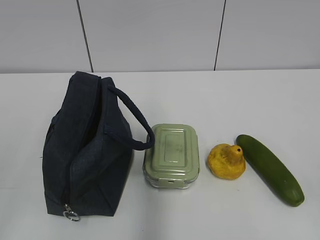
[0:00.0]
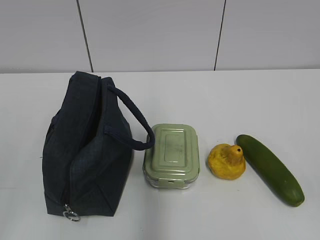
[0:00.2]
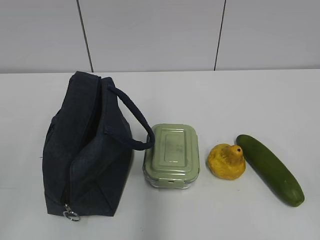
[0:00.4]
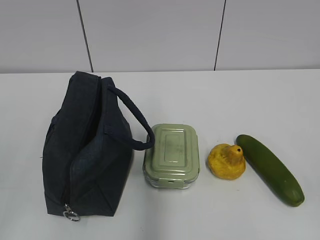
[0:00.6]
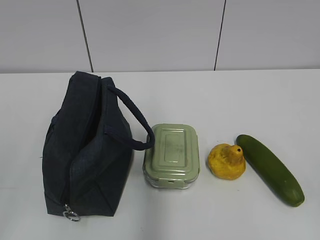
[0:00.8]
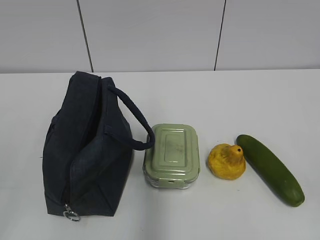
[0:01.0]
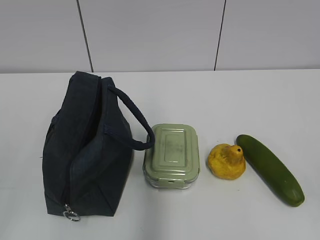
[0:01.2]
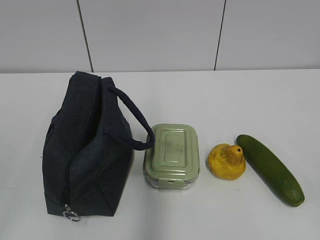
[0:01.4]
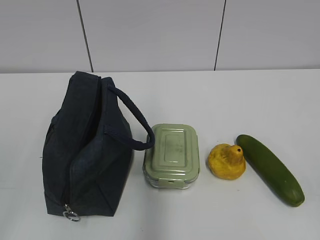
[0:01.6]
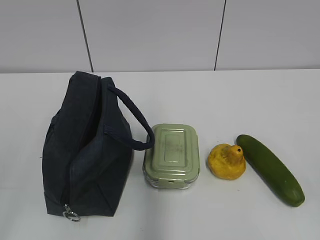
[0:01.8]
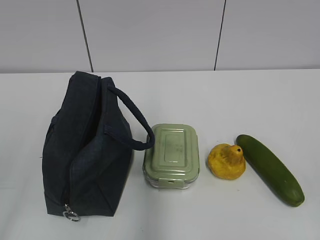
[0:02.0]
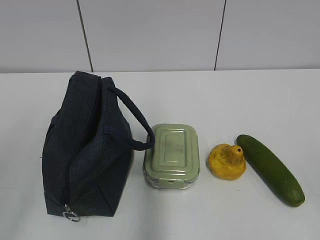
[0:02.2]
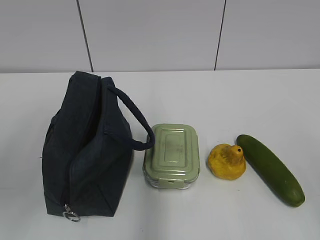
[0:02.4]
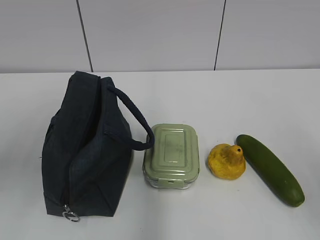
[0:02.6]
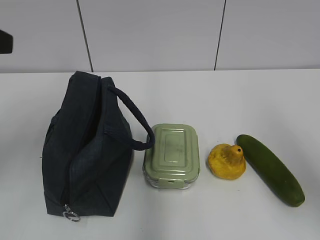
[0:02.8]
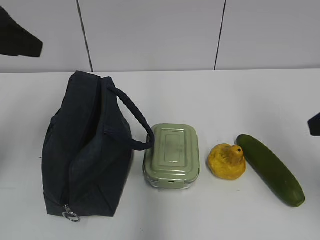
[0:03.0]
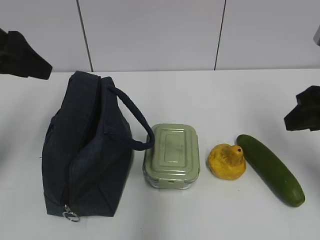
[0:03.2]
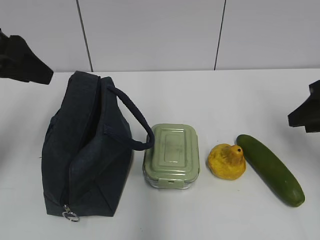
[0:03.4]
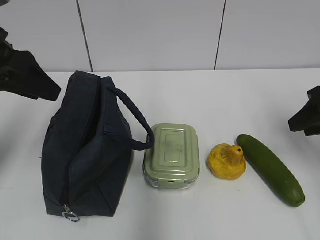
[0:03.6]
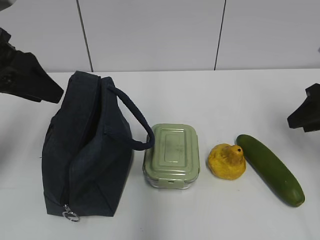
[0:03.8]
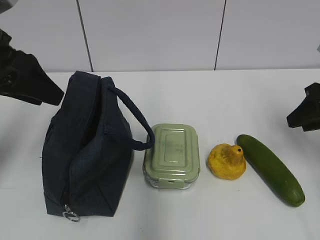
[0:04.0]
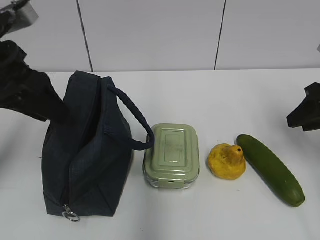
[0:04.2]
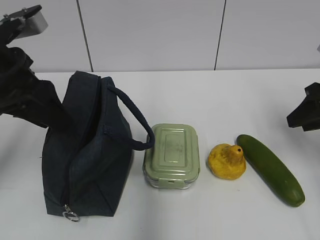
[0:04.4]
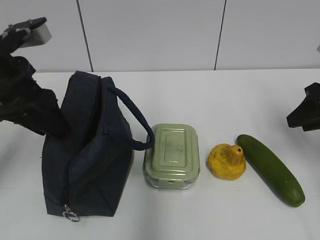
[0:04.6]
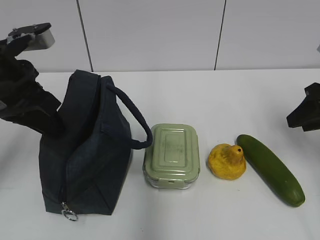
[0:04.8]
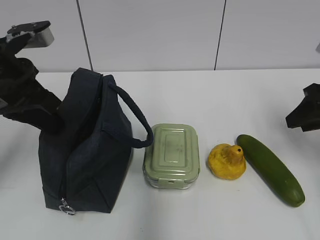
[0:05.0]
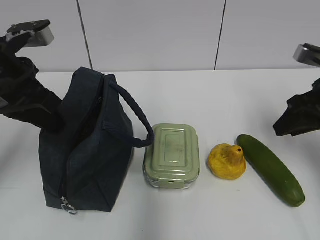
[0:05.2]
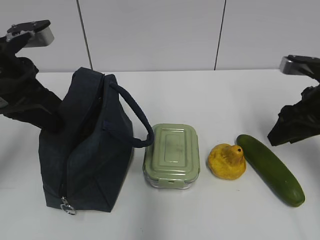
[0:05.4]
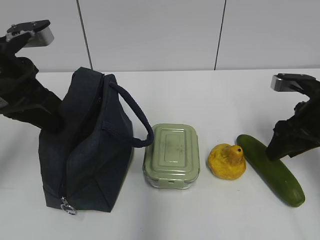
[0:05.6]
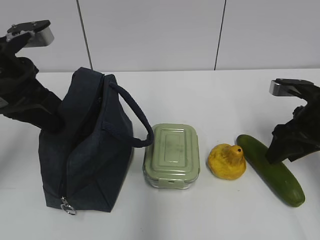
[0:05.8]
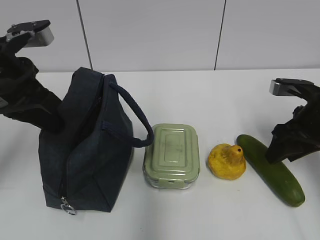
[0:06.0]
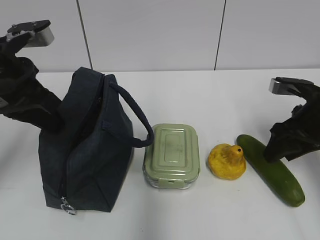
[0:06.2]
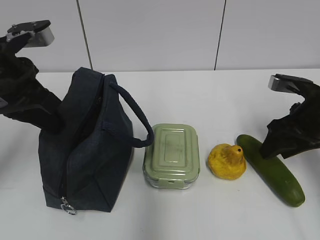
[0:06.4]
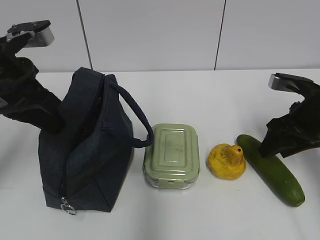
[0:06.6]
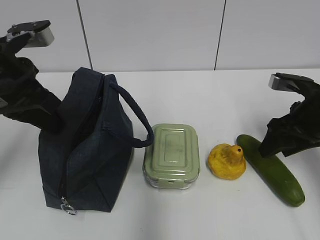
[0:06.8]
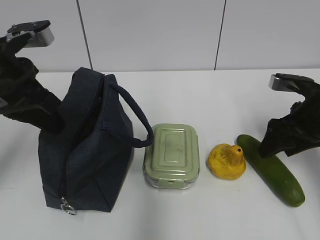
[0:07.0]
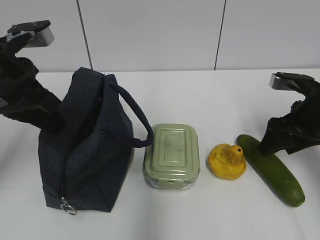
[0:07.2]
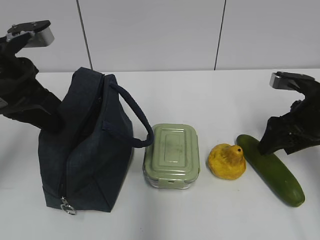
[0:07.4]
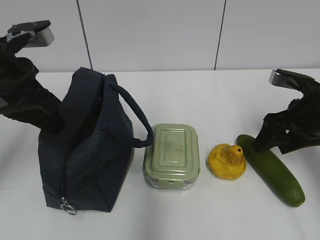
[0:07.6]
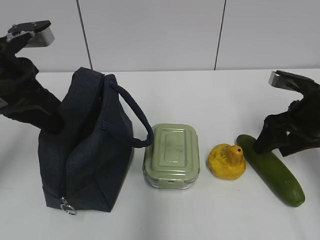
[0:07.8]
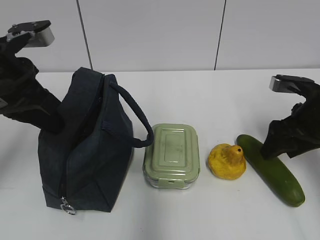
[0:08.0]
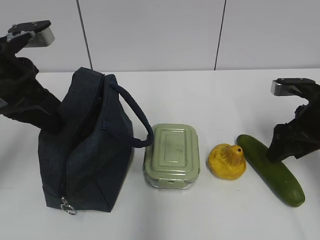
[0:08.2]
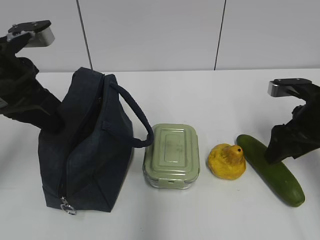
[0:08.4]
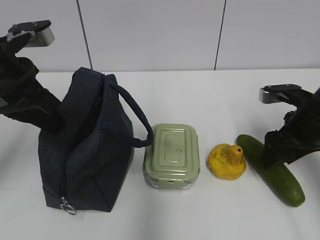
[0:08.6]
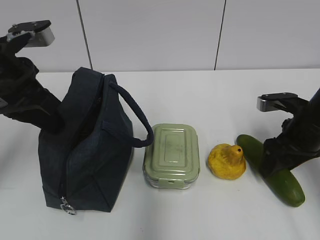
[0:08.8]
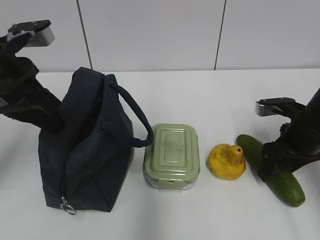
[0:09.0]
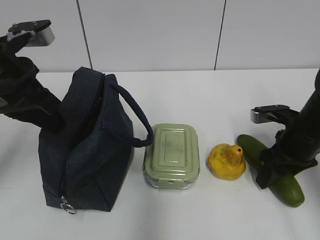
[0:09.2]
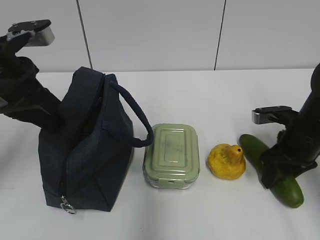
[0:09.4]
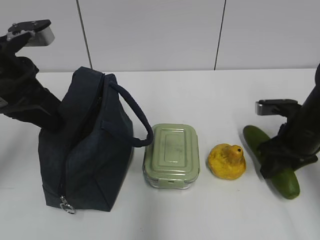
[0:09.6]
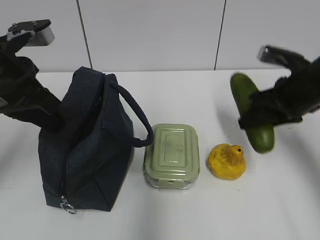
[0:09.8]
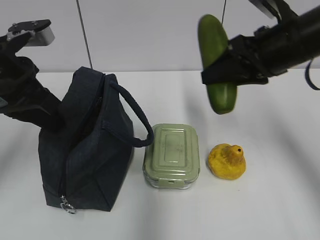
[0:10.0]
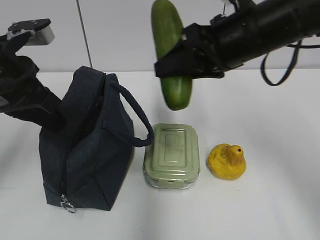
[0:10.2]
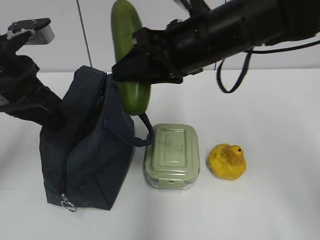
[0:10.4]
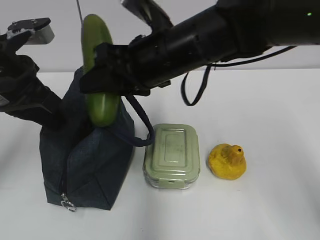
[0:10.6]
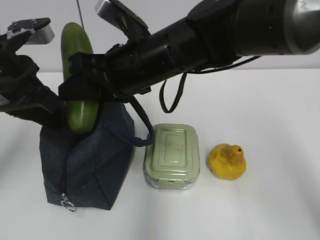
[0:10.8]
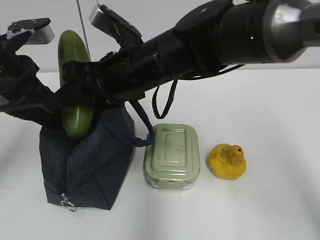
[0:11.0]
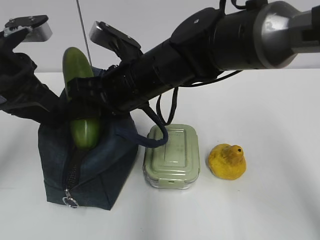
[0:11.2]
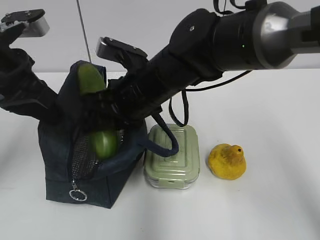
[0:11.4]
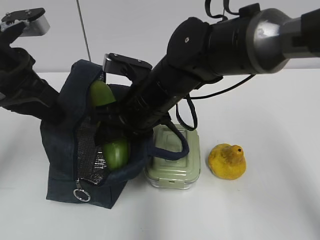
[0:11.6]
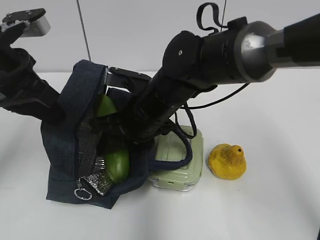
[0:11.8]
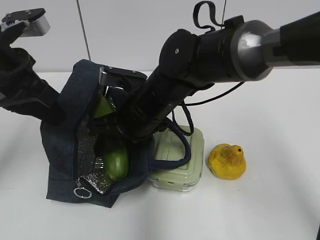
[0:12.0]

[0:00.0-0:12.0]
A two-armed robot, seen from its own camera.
0:01.6 to 0:03.0: The grippers both shift forward by about 25 cm.
0:03.0 to 0:04.4: The right gripper heads forward, to the right and downward, covering about 15 cm. Meanwhile the left gripper heads downward, covering about 5 cm.
0:04.4 to 0:06.0: The right gripper travels downward by approximately 5 cm; the left gripper closes up.
0:06.0 to 0:09.0: The grippers make only small movements.
0:09.0 to 0:10.4: The right gripper shifts some 25 cm to the left and upward, and closes.
0:10.4 to 0:12.0: The right gripper shifts about 10 cm downward and to the left.

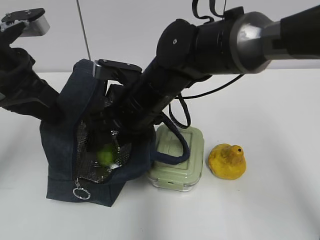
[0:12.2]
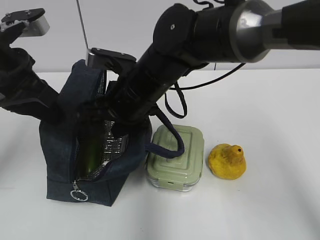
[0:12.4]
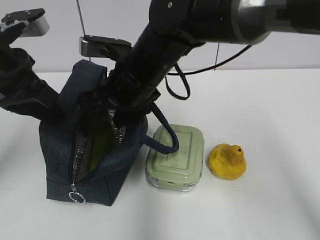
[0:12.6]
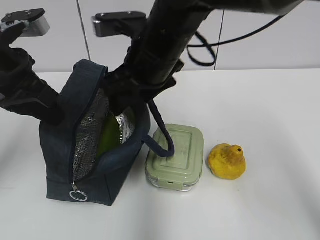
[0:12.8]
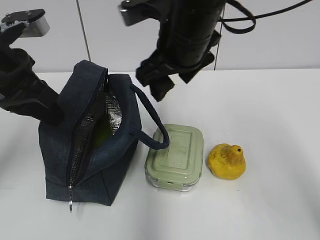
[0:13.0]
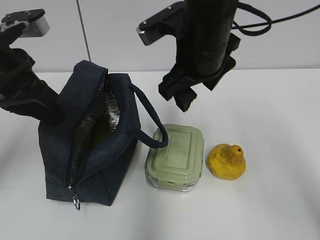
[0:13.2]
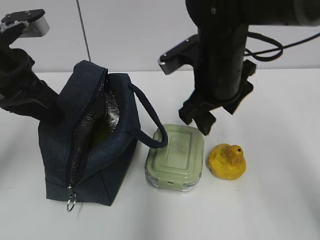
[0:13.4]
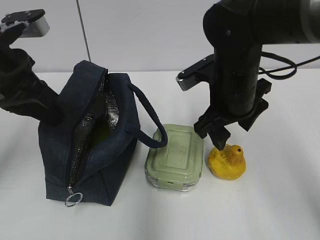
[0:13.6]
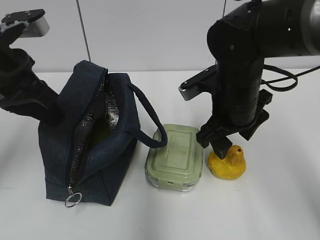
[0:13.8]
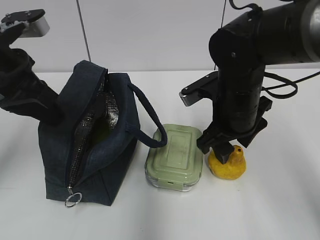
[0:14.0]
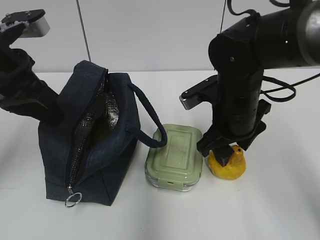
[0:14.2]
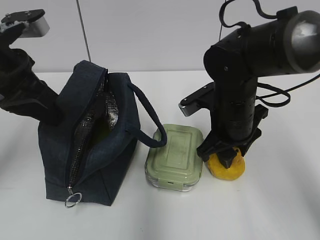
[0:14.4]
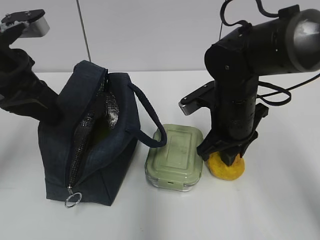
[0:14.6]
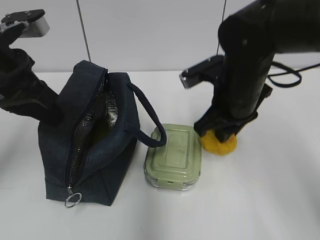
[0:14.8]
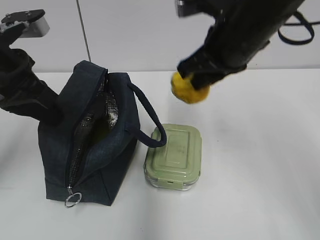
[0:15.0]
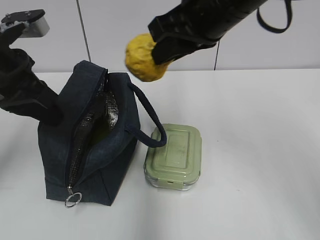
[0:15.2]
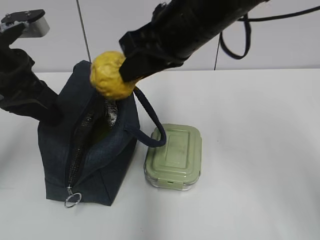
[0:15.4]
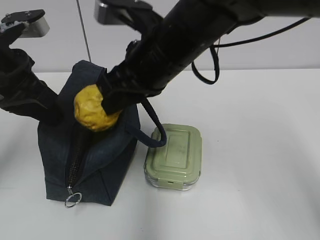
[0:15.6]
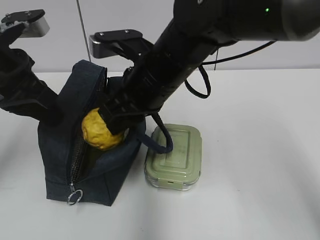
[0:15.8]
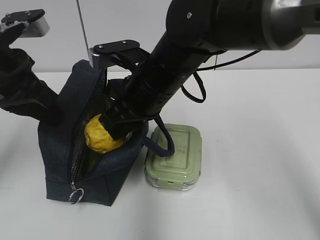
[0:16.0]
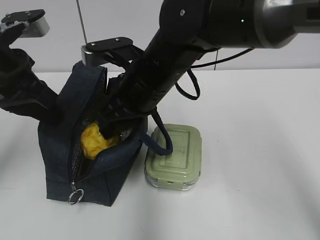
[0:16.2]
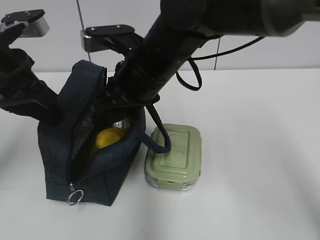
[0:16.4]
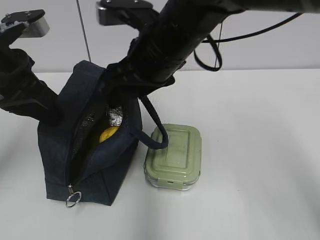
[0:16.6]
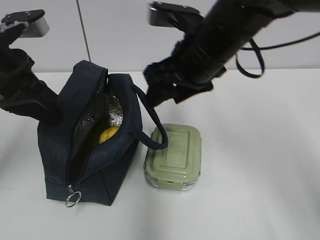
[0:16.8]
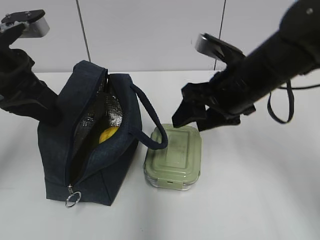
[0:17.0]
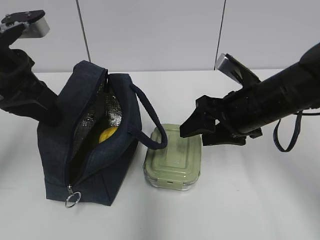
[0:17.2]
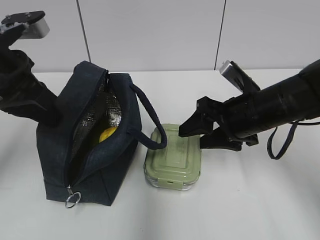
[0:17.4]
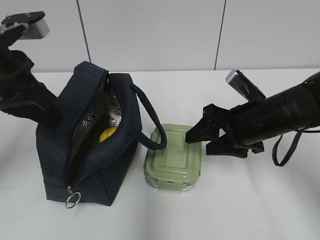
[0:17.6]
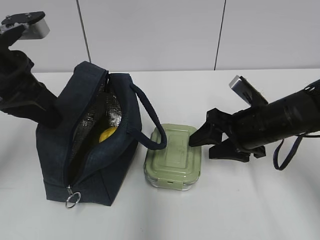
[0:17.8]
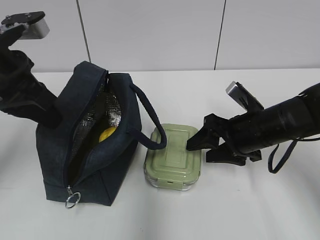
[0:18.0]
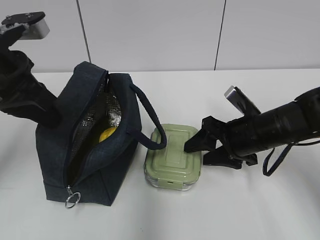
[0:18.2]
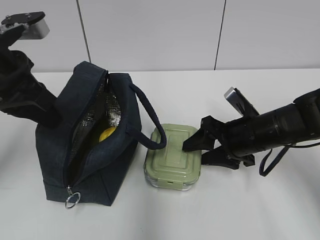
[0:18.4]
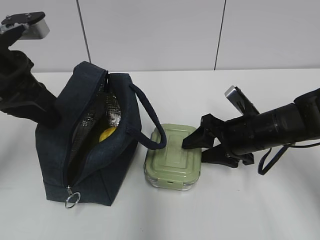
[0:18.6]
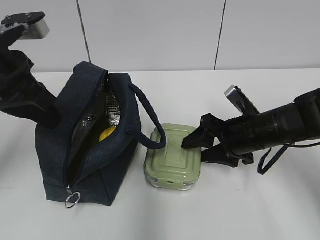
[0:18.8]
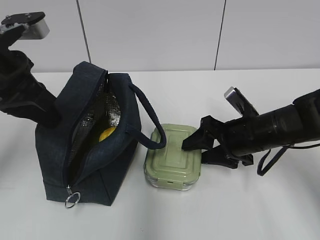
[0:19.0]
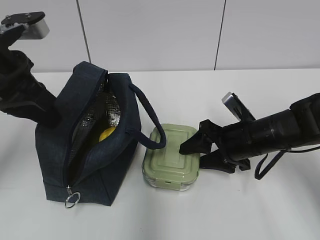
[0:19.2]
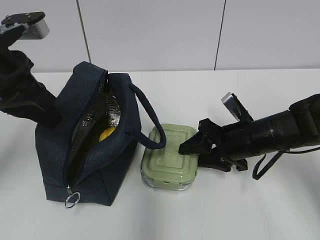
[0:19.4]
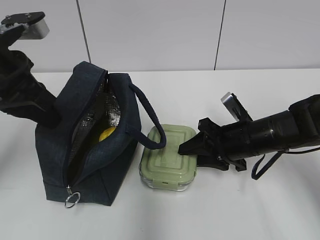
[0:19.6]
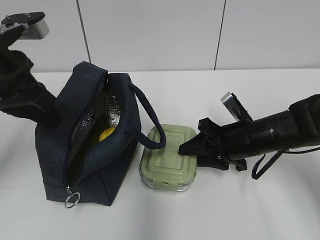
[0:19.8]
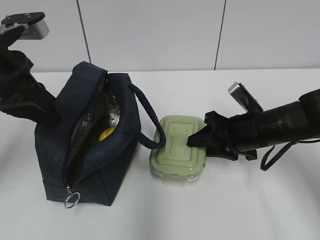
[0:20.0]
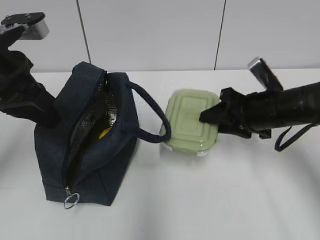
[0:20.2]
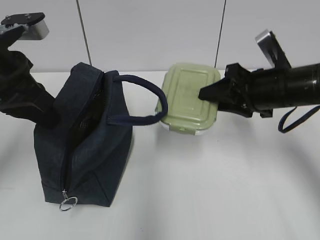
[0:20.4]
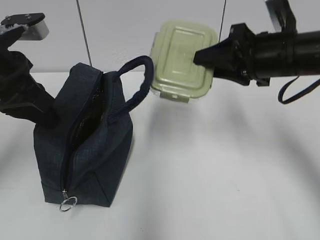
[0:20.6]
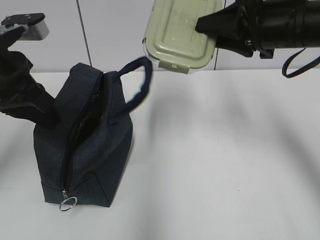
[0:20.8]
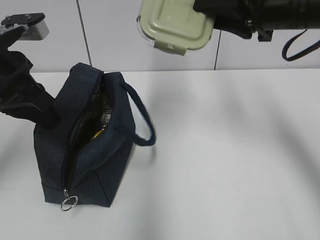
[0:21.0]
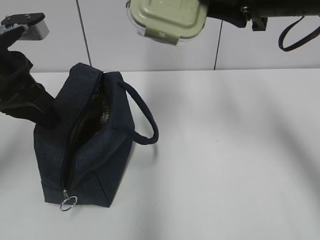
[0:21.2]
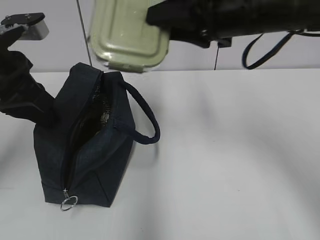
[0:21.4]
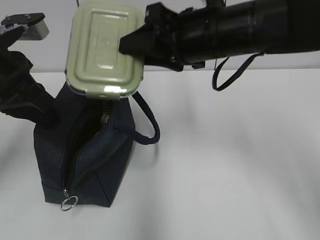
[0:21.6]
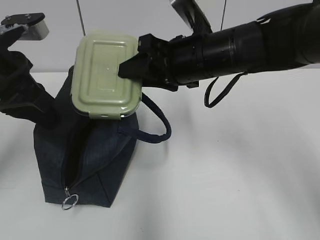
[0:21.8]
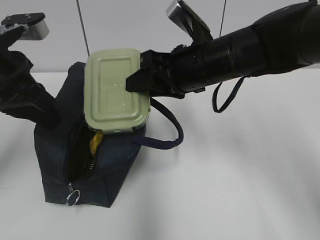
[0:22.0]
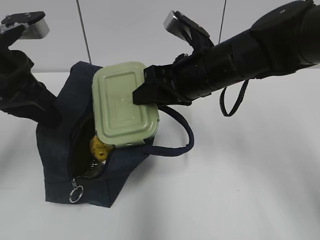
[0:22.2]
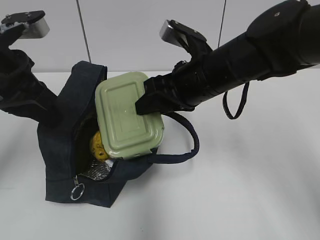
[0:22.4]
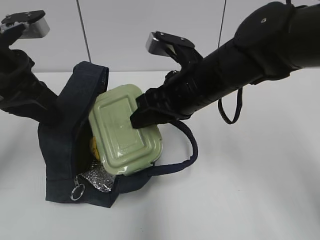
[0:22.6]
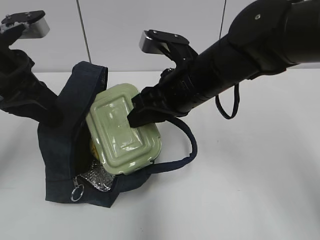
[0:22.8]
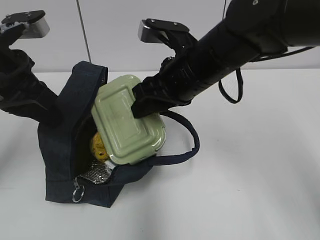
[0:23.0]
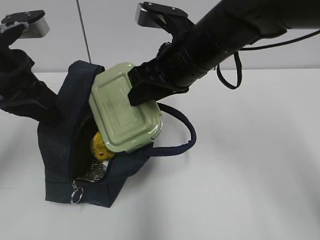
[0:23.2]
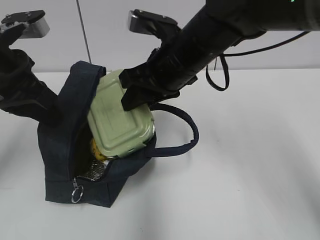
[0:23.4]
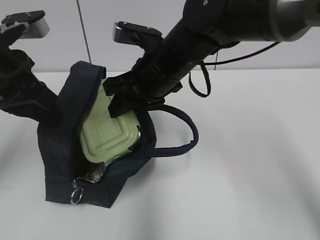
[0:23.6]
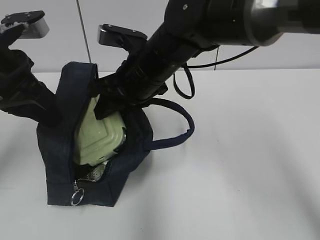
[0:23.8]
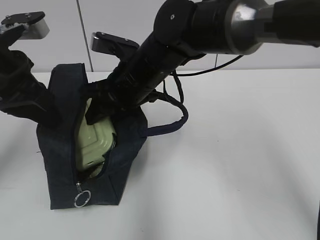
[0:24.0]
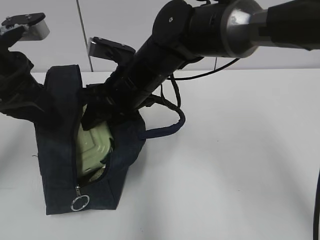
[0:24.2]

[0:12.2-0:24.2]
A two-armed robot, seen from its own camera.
0:12.2 to 0:13.8: The right gripper heads to the right, covering some 15 cm.
0:13.8 to 0:15.2: The right gripper travels upward by some 15 cm, and closes up.
0:15.2 to 0:16.6: The right gripper is displaced to the left and downward by some 10 cm, and opens up.
0:16.6 to 0:18.2: The right gripper goes about 20 cm downward and to the right.
0:18.2 to 0:19.8: The right gripper closes its fingers.
0:19.8 to 0:21.2: The right gripper heads upward, covering approximately 25 cm.
0:21.2 to 0:22.6: The right gripper shifts roughly 15 cm downward and to the left.
0:22.6 to 0:24.2: The right gripper moves to the left, some 10 cm.
